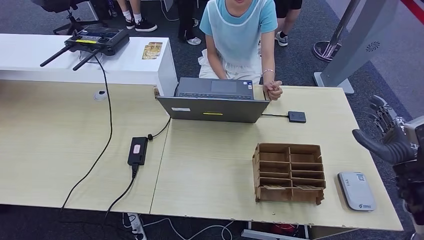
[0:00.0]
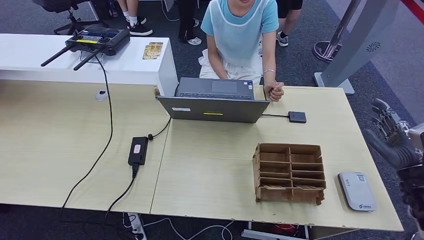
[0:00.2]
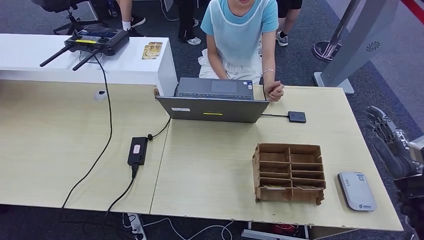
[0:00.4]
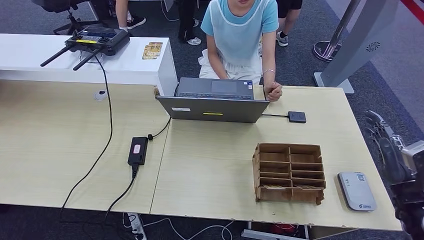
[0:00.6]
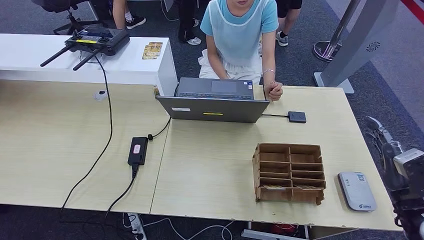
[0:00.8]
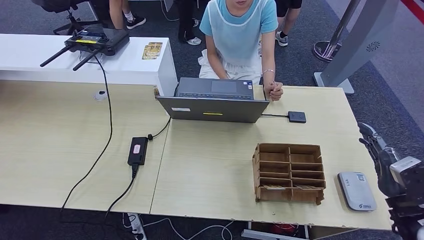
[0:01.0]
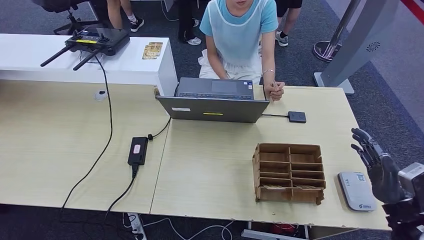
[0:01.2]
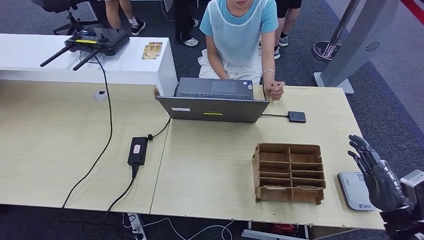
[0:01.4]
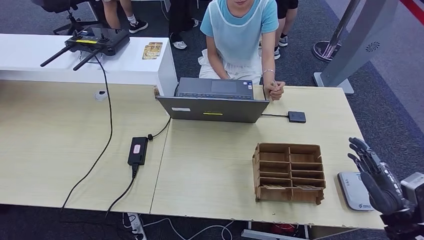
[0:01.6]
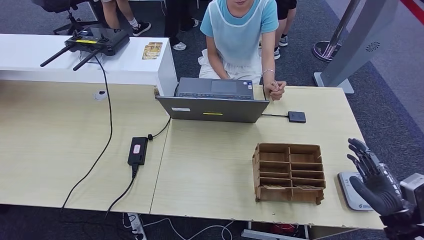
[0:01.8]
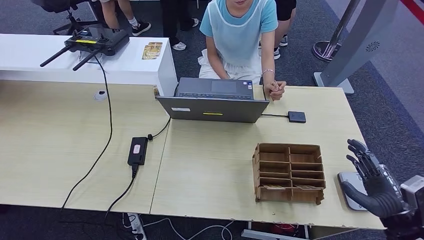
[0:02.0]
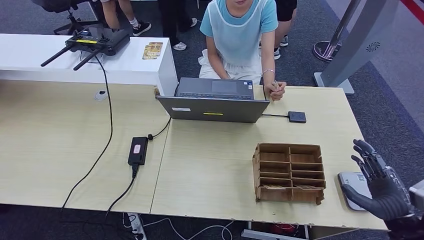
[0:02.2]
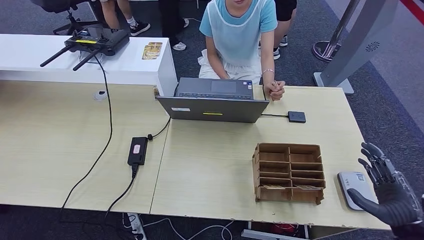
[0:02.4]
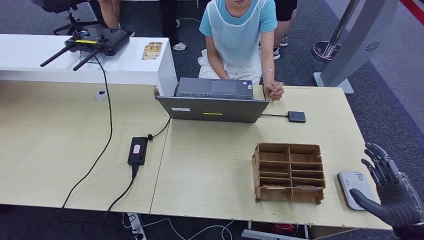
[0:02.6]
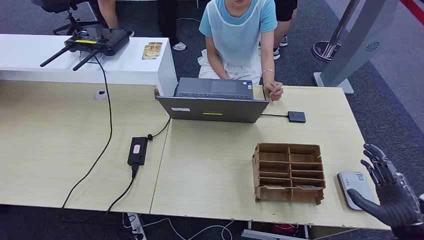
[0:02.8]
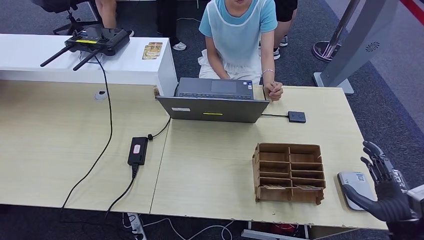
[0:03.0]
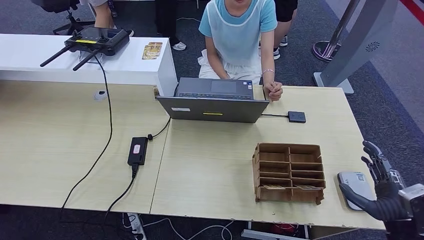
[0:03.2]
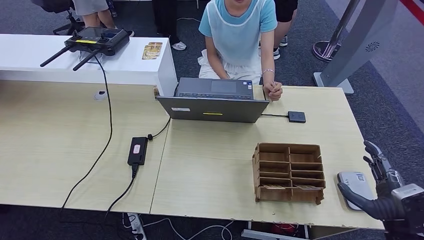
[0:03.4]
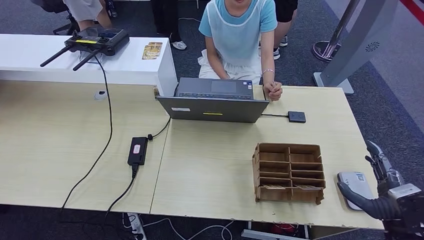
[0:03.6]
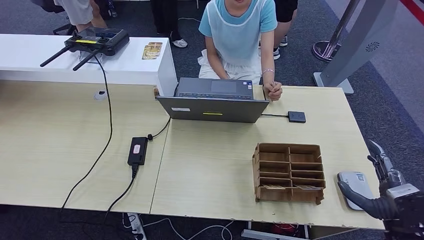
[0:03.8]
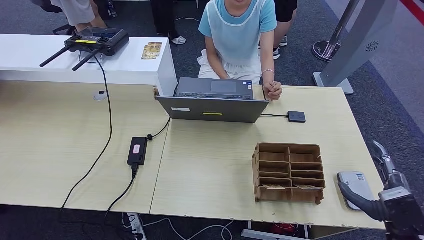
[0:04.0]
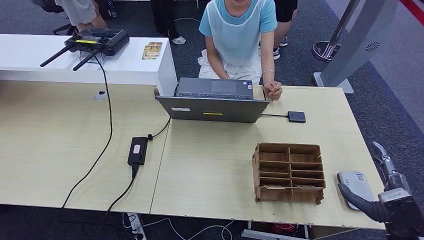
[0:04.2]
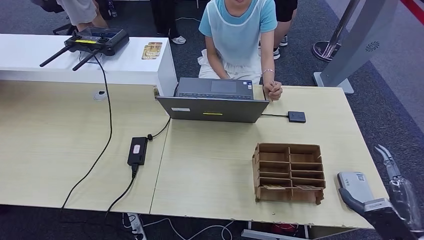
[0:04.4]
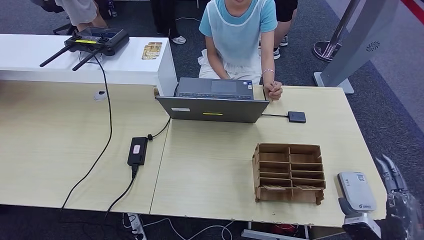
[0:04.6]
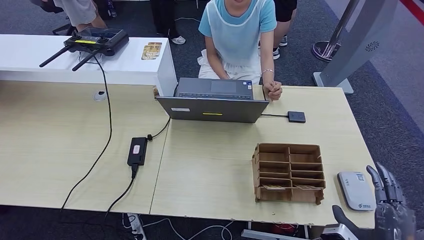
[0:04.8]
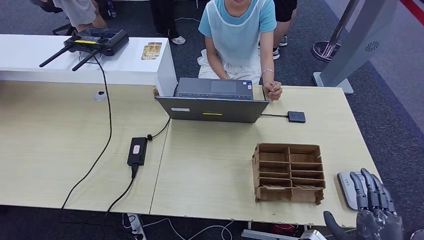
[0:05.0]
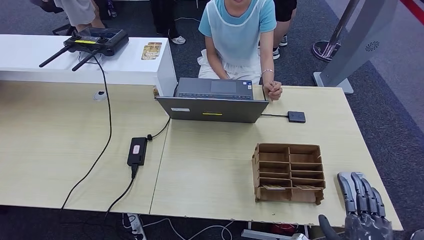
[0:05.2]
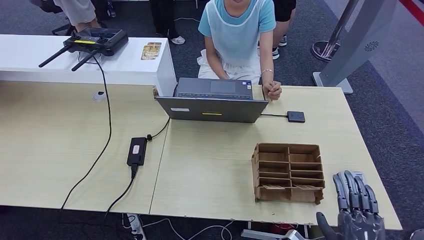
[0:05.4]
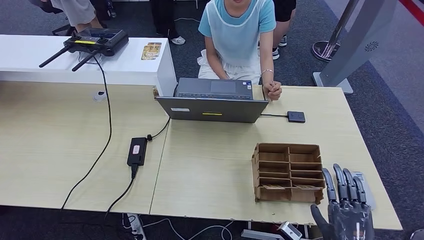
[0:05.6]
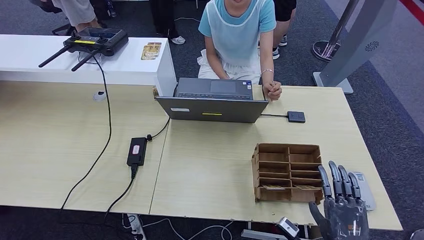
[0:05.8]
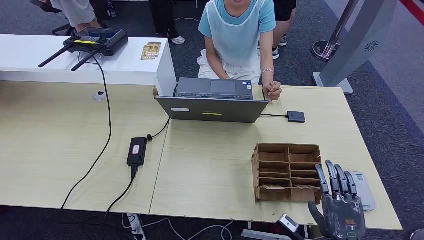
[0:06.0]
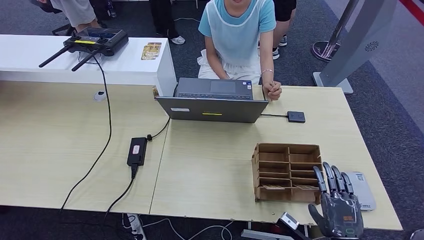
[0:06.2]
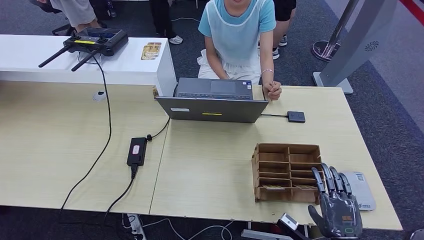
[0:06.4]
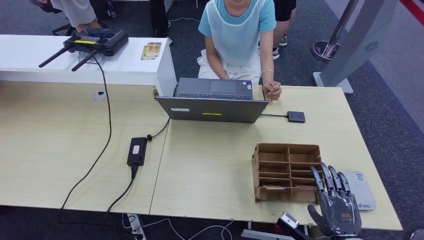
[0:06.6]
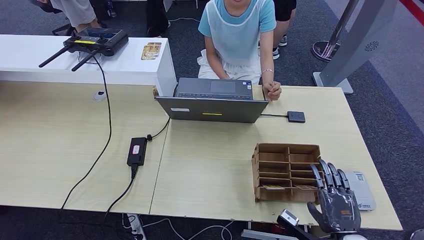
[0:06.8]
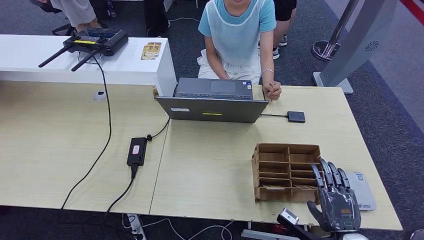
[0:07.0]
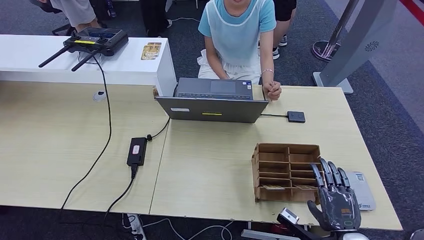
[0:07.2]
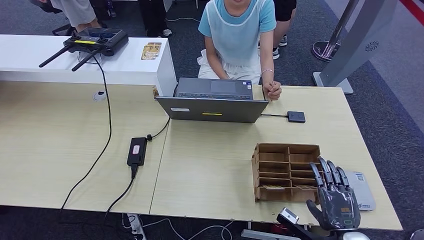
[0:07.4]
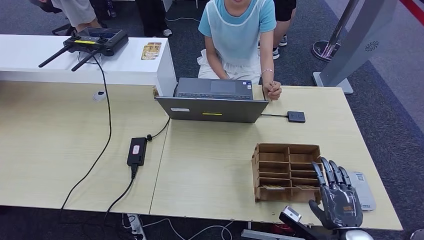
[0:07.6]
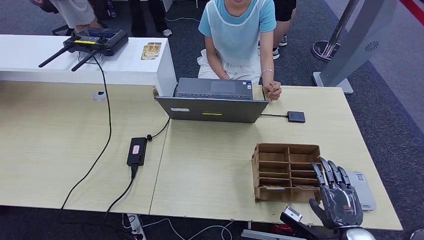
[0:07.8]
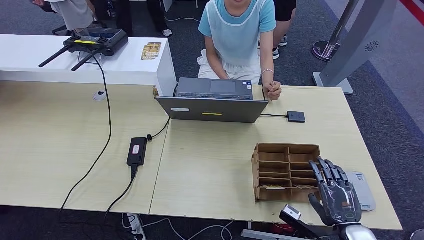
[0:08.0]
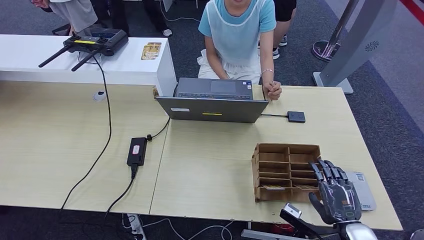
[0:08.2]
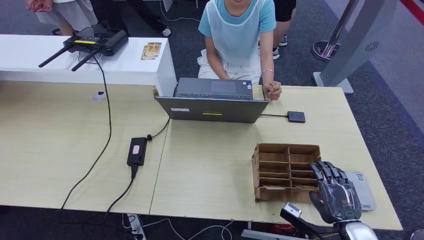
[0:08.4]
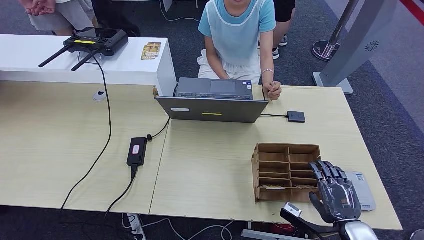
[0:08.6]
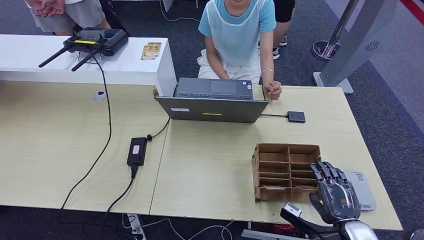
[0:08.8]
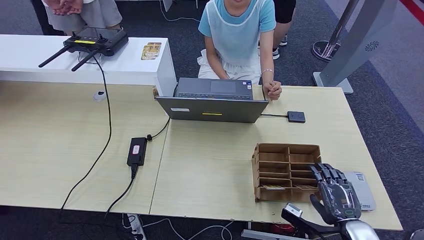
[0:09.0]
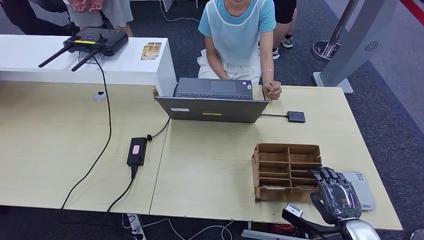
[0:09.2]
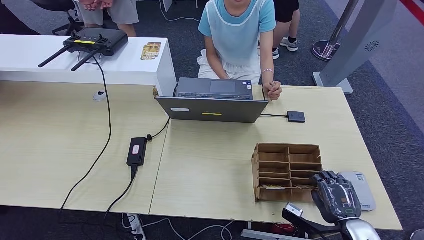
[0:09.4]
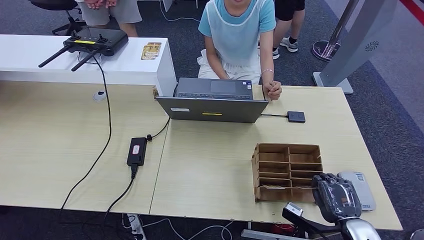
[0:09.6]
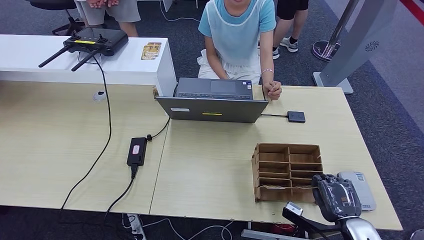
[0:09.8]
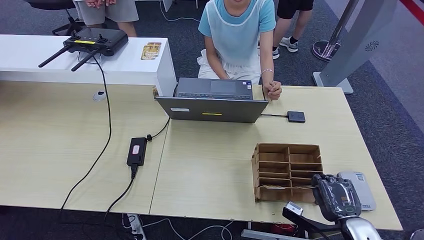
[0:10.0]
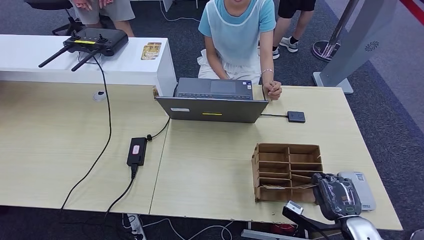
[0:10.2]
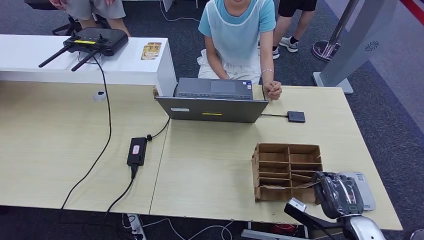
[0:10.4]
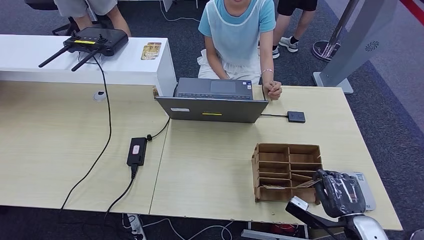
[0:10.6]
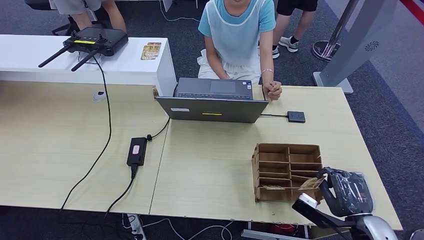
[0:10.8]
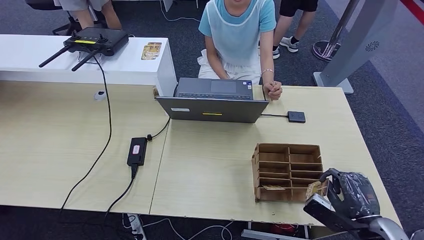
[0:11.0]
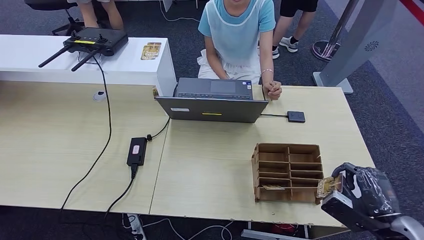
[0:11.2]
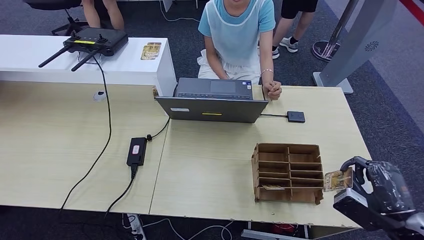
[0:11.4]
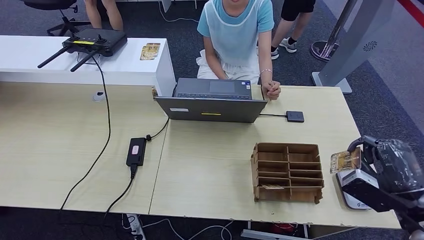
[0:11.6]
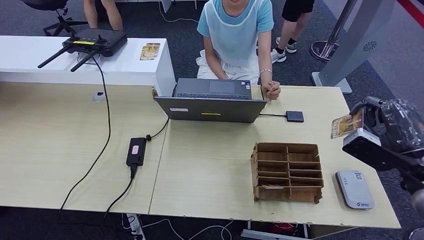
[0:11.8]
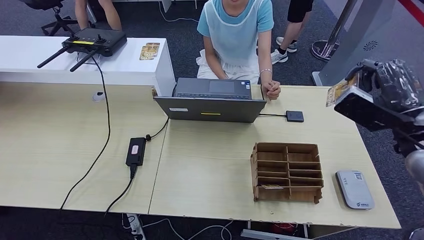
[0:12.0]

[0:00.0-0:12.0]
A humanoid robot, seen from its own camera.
Step, 0:07.6 to 0:11.6: Pick up the room key from the key card box.
0:00.0 to 0:01.6: The right hand heads backward and downward, covering some 10 cm.
0:01.6 to 0:03.0: The hands move only a little.
0:04.4 to 0:06.0: The right hand shifts approximately 10 cm to the left and downward.
0:06.0 to 0:09.0: The hands stay close to where they were, moving slightly.
0:09.0 to 0:10.4: The hands move only a little.
0:10.4 to 0:12.0: The right hand shifts roughly 30 cm upward and forward.

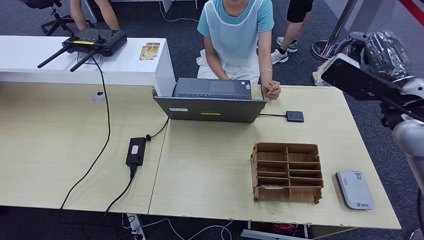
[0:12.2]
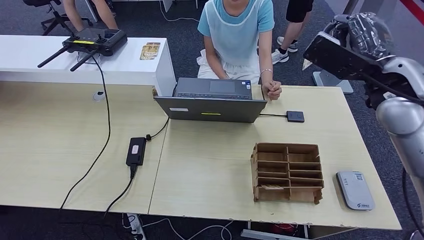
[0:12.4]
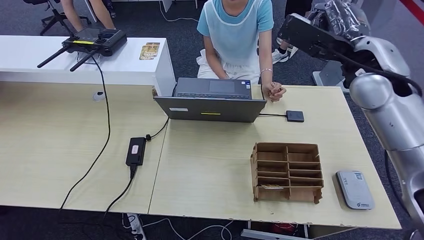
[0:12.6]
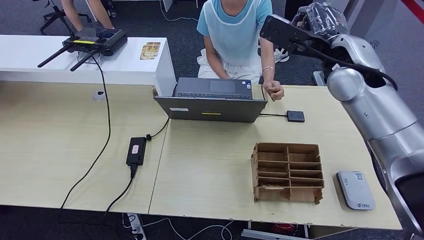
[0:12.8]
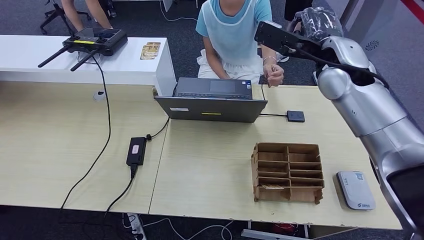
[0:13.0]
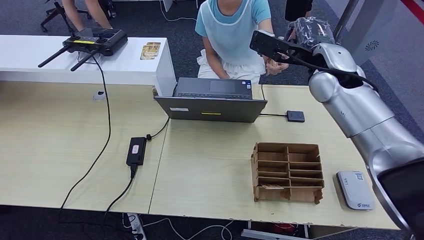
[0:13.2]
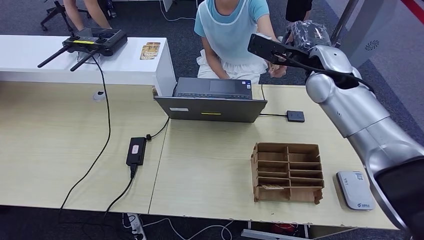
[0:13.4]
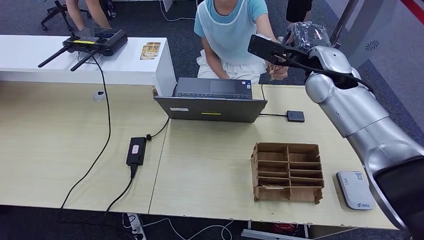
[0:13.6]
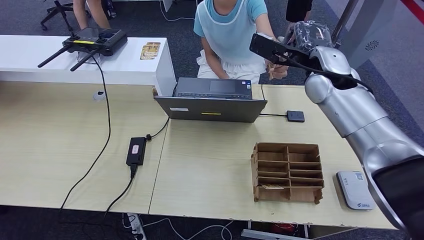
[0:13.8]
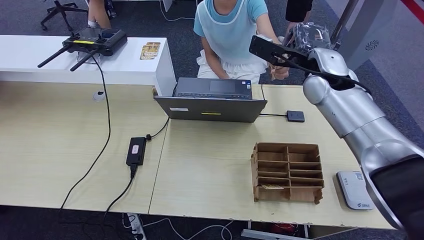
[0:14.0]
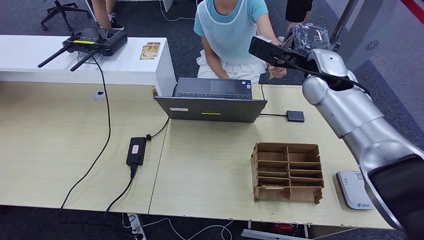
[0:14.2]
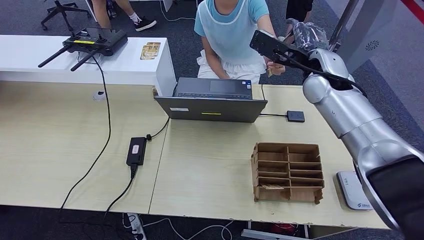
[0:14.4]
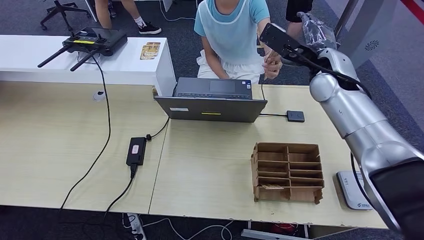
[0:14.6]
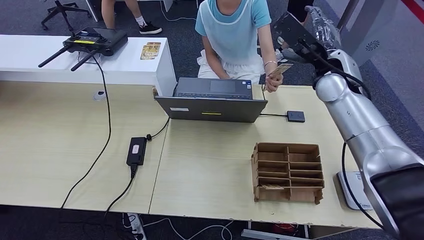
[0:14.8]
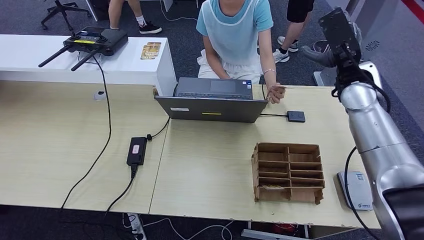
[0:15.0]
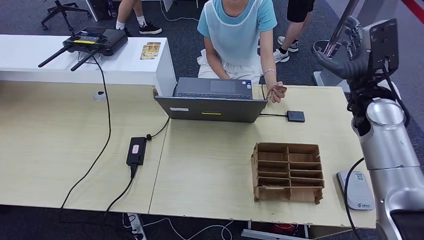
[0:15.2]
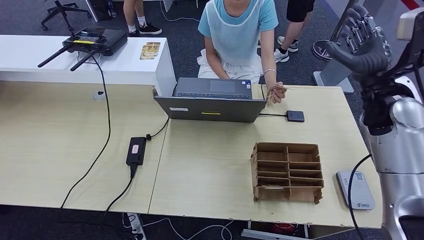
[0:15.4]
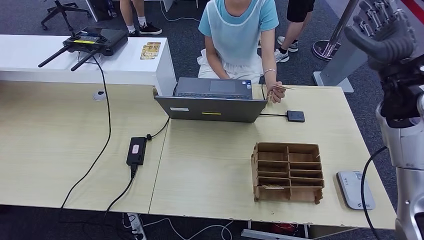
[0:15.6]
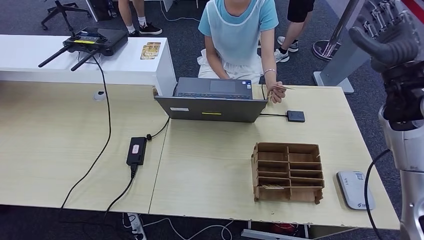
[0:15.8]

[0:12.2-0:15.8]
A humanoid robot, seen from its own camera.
Step, 0:12.2 to 0:15.8: Hand the room key to the person.
0:12.2 to 0:14.0: The right hand moves forward and to the left, roughly 15 cm.
